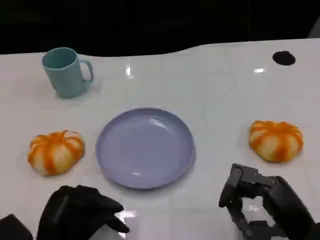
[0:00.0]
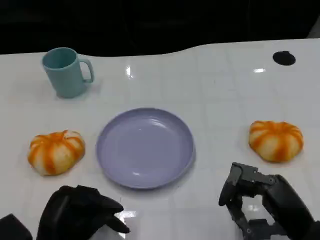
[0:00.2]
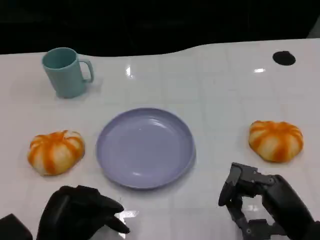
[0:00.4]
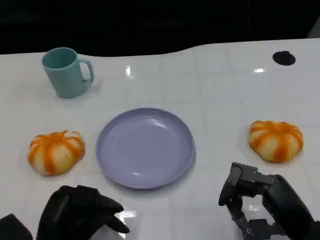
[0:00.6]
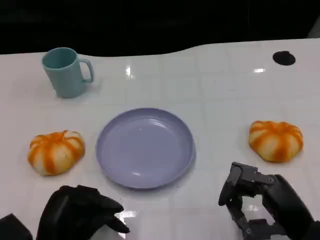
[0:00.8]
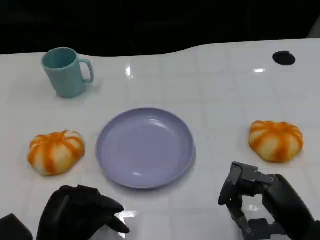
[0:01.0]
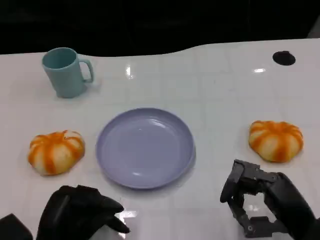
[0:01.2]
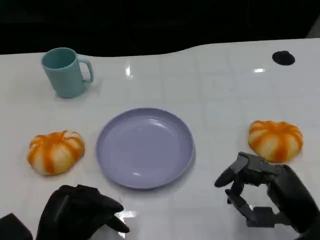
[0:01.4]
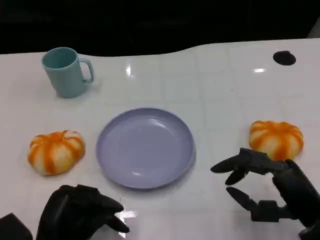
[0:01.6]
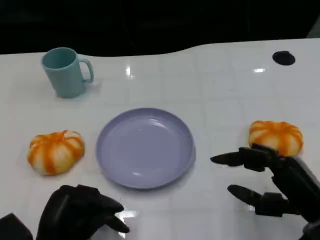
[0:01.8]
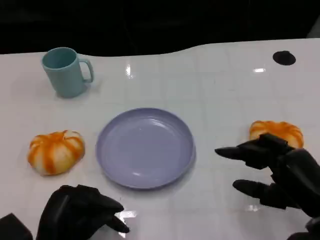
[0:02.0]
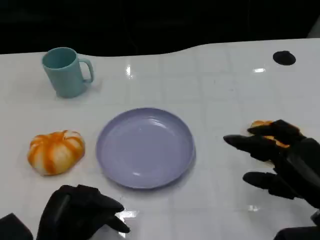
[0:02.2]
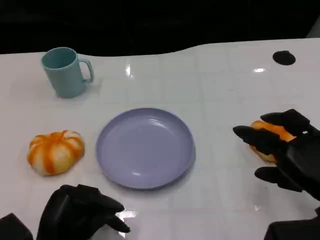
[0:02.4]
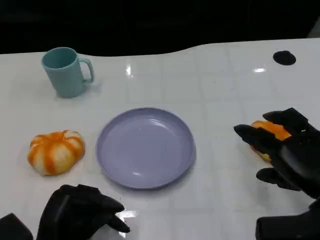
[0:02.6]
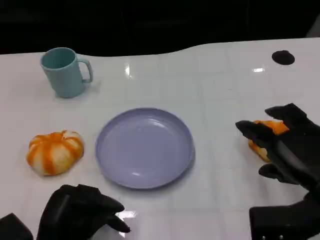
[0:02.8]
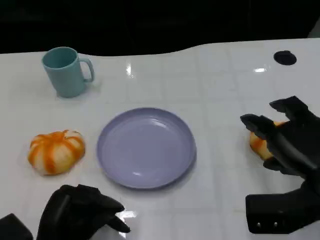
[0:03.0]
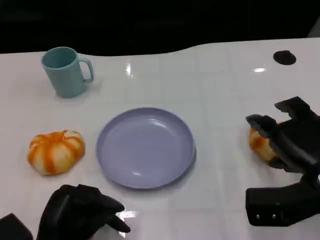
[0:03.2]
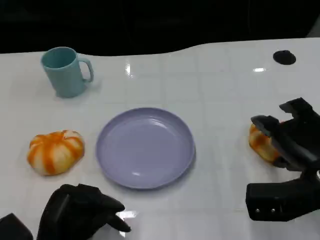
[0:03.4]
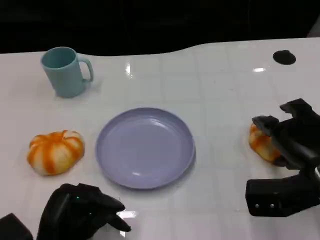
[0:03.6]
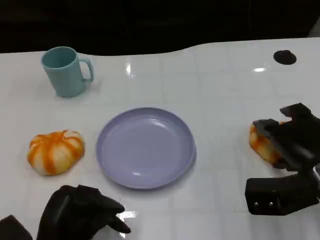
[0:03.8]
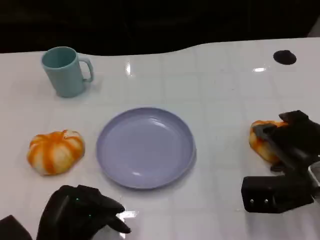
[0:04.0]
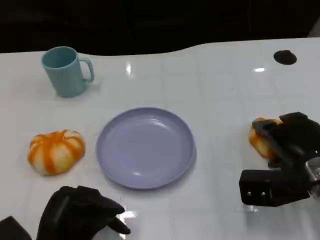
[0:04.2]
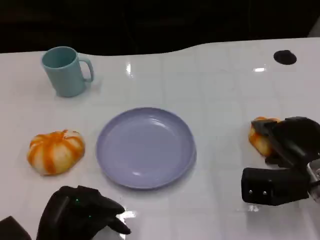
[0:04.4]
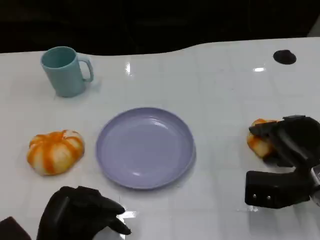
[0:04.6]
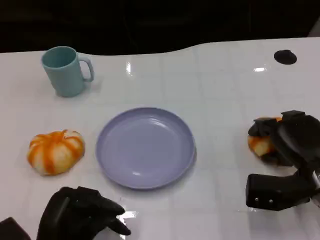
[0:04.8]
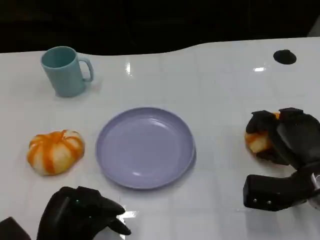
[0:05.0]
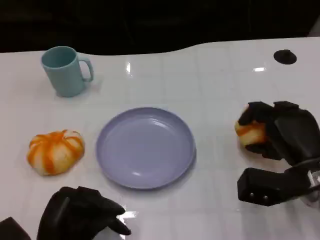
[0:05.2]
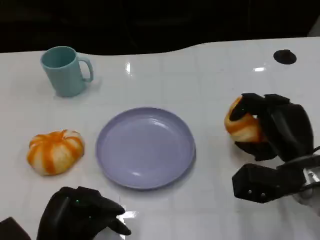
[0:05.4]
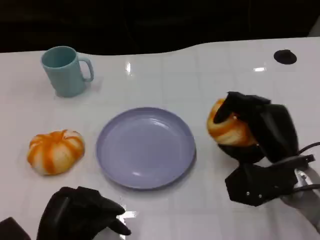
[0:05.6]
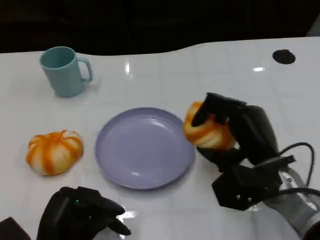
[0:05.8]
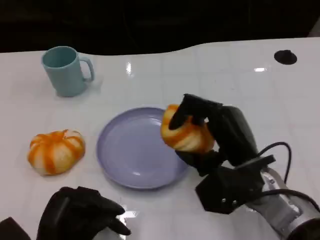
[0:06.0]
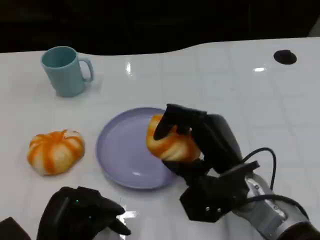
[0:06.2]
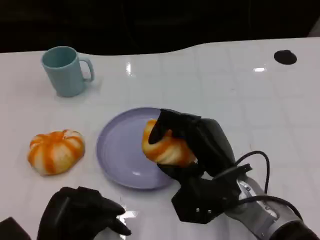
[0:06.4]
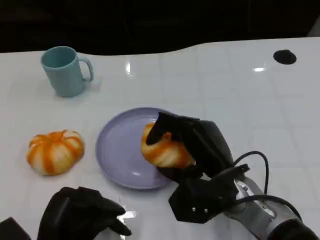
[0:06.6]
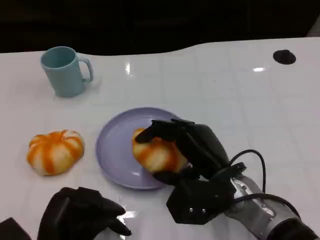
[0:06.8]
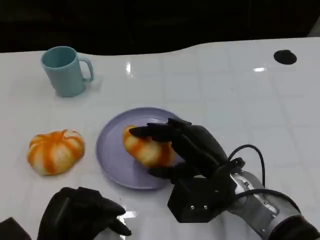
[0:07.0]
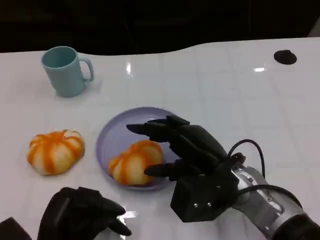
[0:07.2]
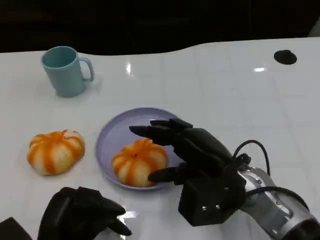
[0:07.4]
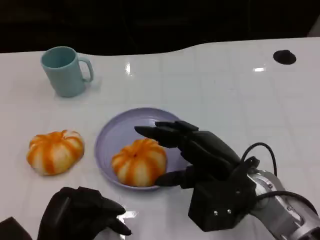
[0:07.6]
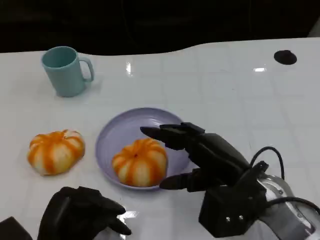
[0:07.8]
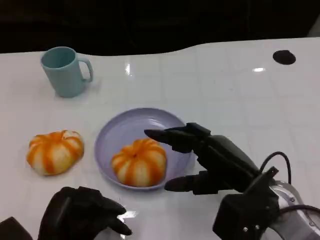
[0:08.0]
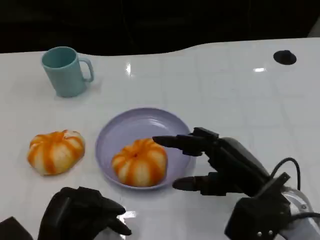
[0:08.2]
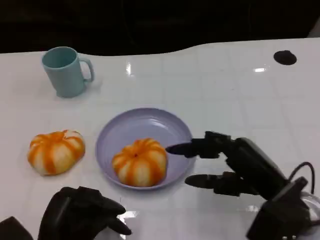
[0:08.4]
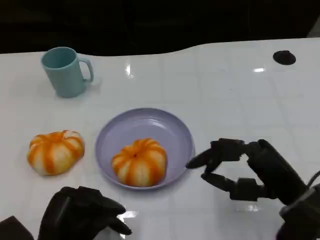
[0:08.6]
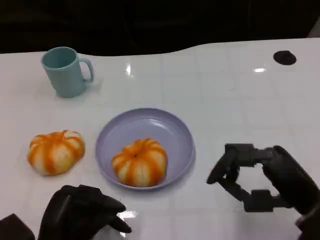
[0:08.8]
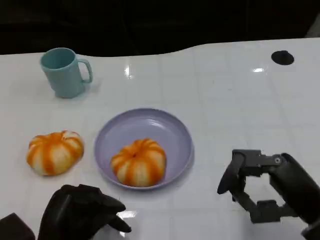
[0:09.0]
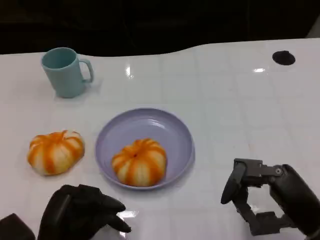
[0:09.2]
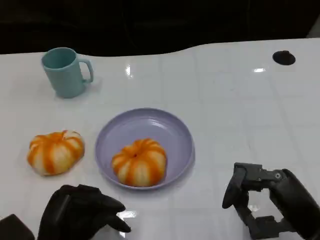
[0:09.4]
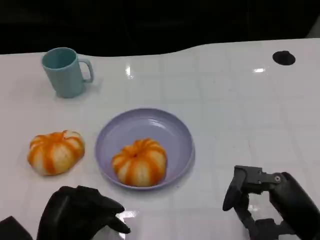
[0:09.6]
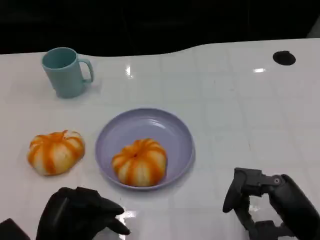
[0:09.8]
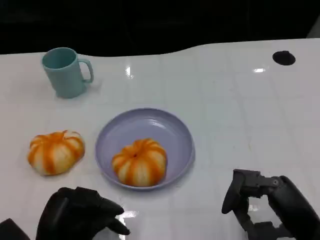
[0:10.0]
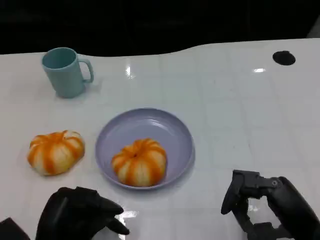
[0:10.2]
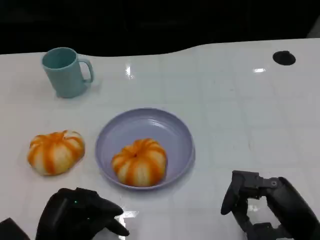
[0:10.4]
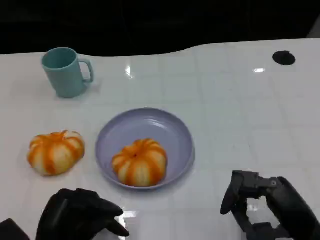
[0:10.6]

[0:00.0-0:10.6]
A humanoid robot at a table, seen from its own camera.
Task of the whole recording: Grasp the bread from the table and place it into the plate.
0:00.0 to 0:01.6: The hands move only a little.
0:01.6 to 0:03.0: The right hand moves some 5 cm.
0:03.0 to 0:04.6: The right hand travels downward by approximately 5 cm.
0:04.6 to 0:06.0: The right hand is displaced to the left by about 10 cm.
0:07.6 to 0:09.0: The right hand travels to the right and backward by some 10 cm.
0:09.0 to 0:10.6: There are only small adjustments of the hands.

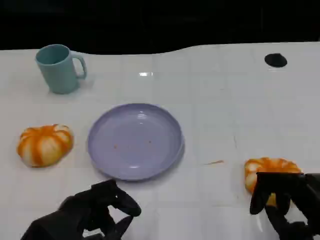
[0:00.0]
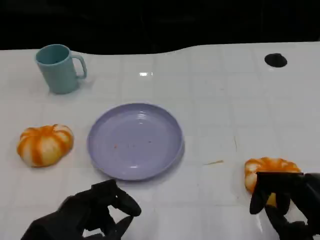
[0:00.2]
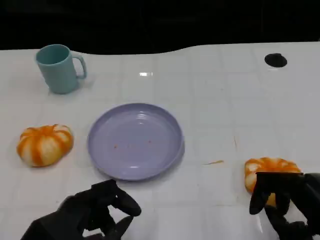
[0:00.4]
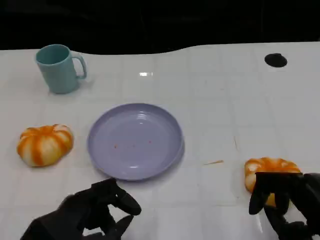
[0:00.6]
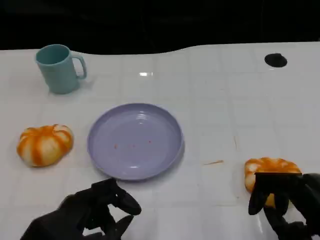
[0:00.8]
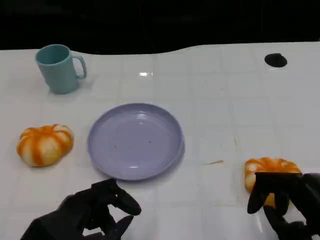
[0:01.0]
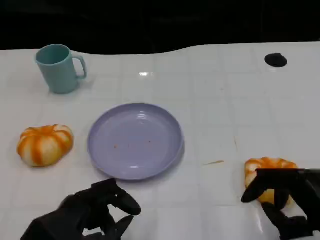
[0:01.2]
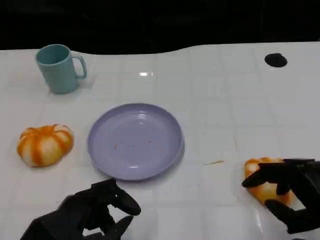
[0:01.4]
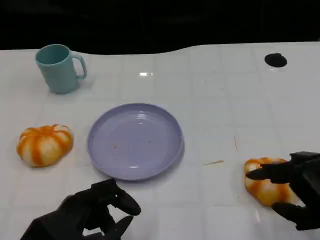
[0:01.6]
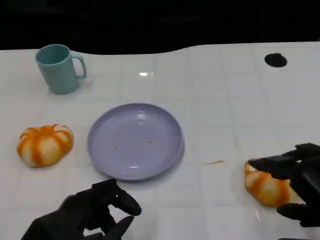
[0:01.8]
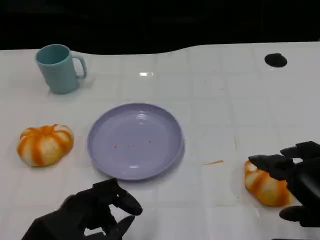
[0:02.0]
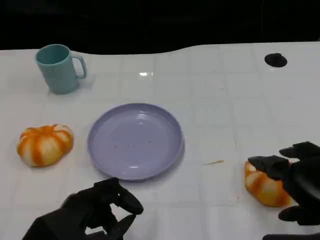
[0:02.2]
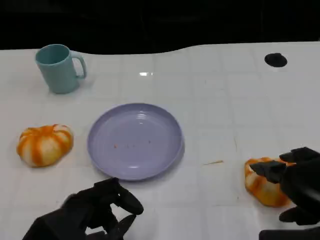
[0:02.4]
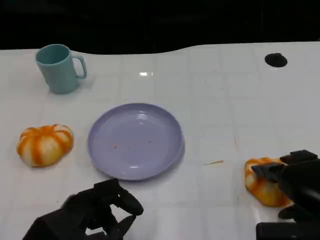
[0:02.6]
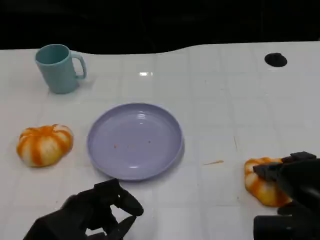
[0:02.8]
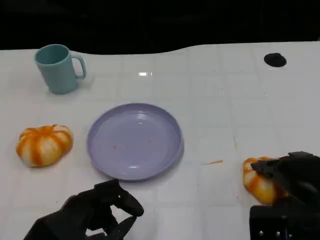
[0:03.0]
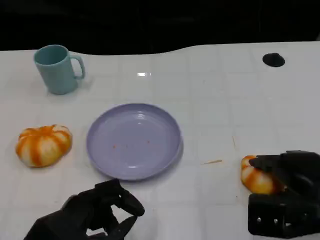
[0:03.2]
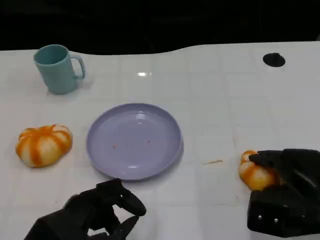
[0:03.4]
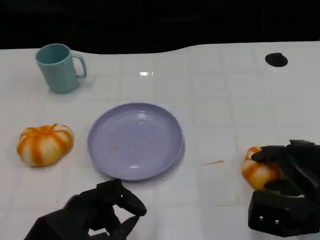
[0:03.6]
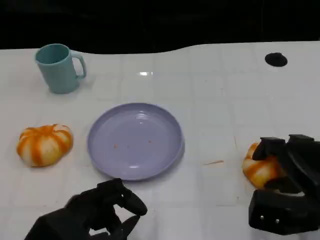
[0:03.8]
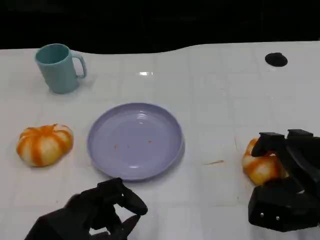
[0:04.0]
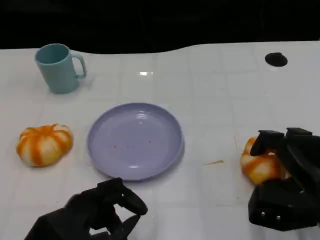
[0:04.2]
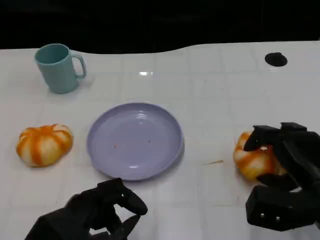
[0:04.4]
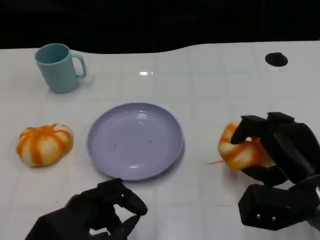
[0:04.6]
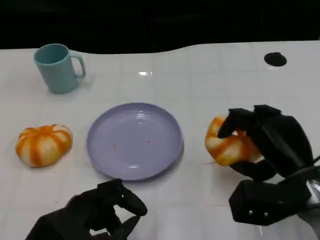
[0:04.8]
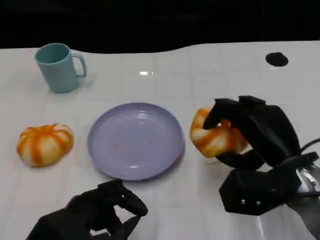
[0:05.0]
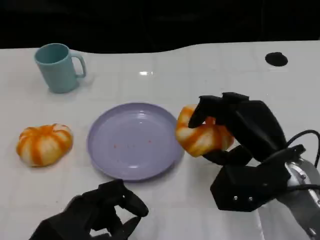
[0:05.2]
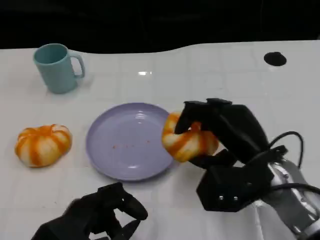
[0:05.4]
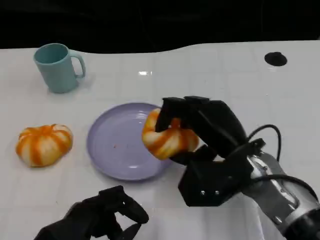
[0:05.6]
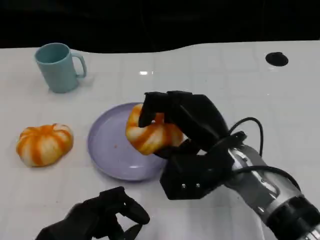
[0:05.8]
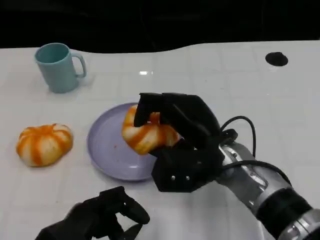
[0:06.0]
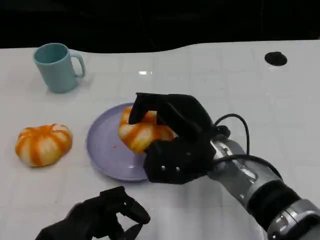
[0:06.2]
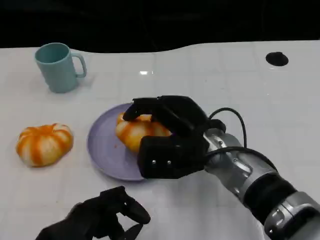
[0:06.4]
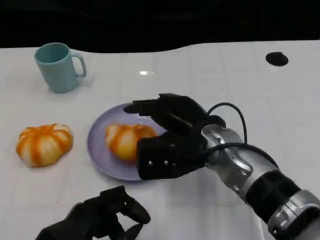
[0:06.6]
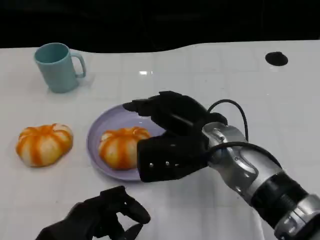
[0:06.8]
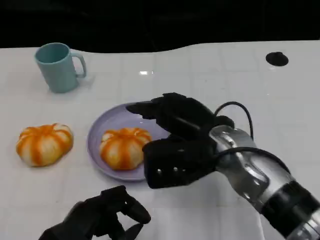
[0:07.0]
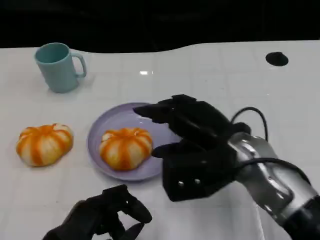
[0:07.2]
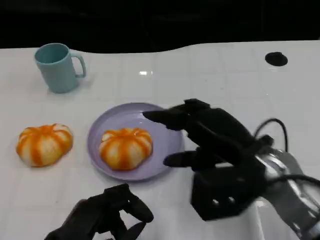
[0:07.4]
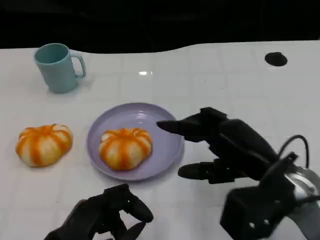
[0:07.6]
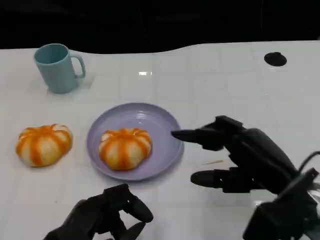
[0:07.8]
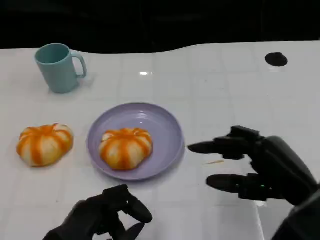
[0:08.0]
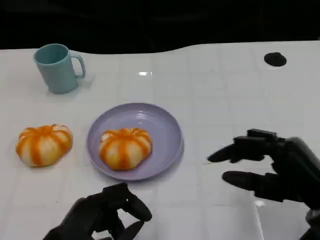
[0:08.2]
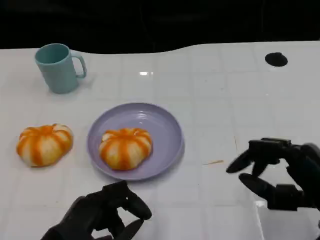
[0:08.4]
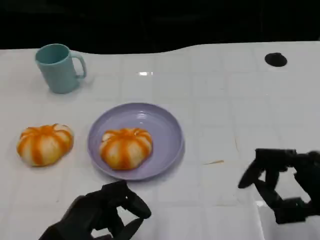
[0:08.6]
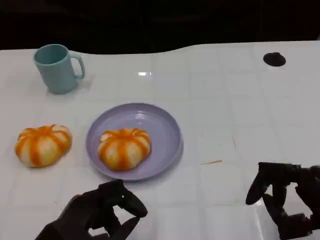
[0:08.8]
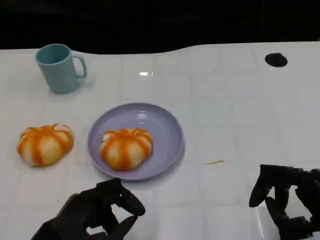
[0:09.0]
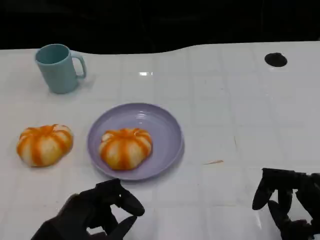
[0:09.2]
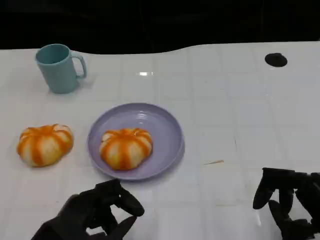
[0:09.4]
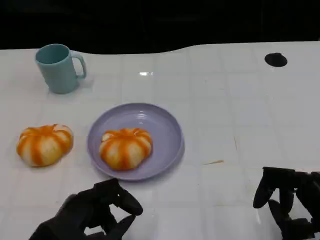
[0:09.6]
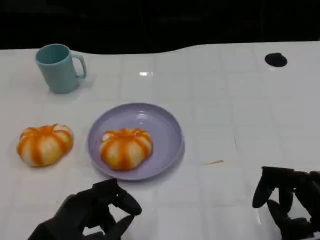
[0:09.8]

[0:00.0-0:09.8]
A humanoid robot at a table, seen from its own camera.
Task of the whole recording: Grasp the bread from the table and place it into the plate.
0:00.0 to 0:01.4: The hands make only small movements.
0:04.2 to 0:05.6: The right hand heads to the left and upward, covering roughly 15 cm.
0:07.0 to 0:08.4: The right hand goes roughly 20 cm to the right and backward.
0:08.4 to 0:09.8: There are only small adjustments of the hands.

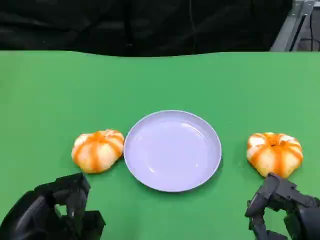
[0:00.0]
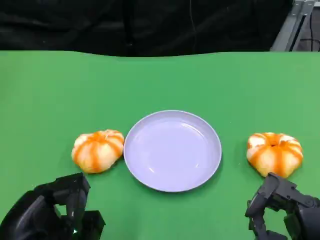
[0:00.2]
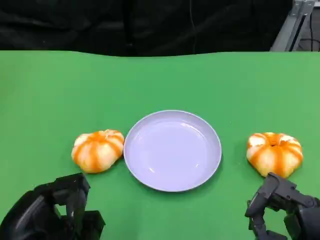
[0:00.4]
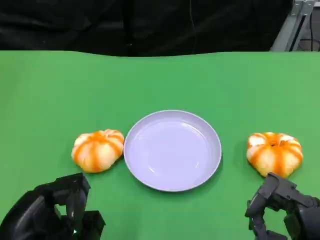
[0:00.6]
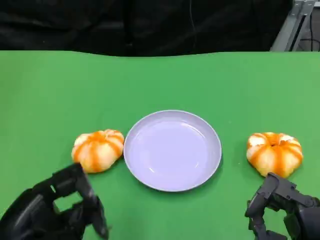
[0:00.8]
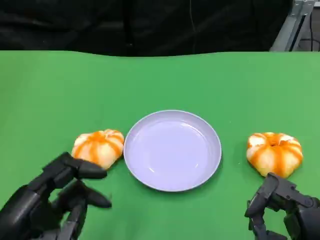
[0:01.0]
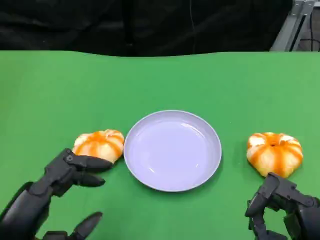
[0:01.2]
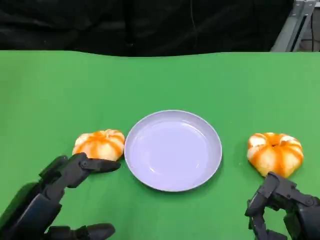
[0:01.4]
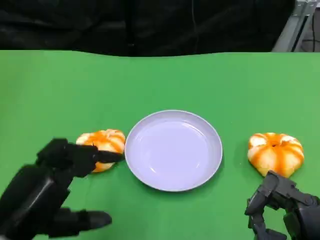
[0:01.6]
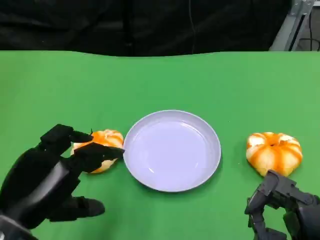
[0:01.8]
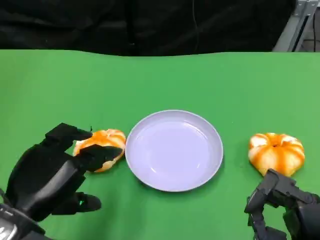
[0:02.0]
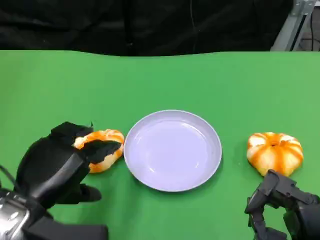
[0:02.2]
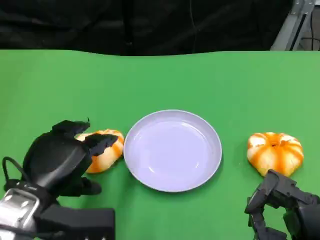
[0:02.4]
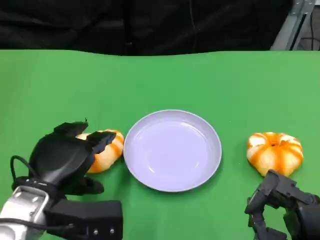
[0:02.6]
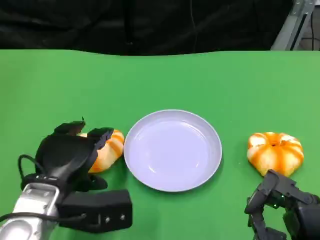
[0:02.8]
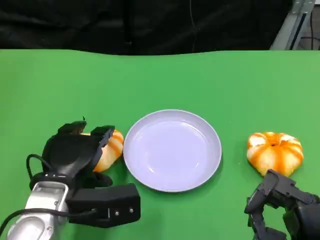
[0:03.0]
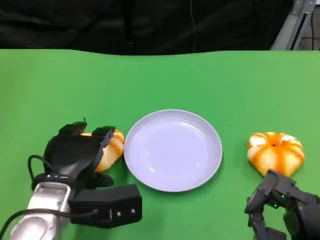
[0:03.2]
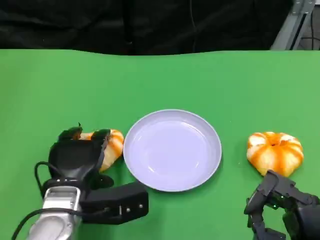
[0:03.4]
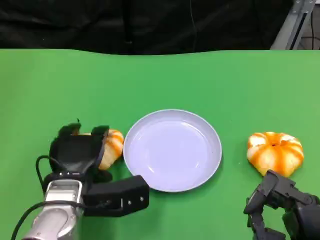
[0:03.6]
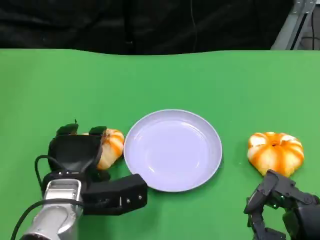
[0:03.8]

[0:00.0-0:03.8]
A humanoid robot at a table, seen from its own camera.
Task of the whole recording: Grasp the bread from the table and place it into the plate.
0:01.2 to 0:02.6: The left hand moves forward, about 10 cm.
0:02.6 to 0:03.8: The left hand changes place by about 5 cm.
